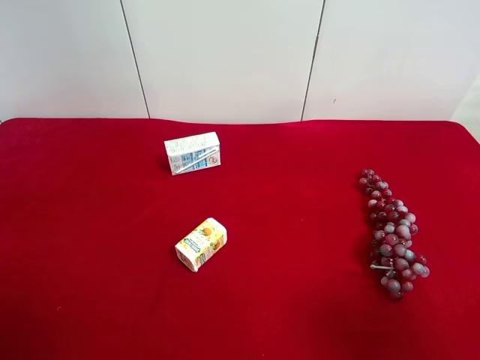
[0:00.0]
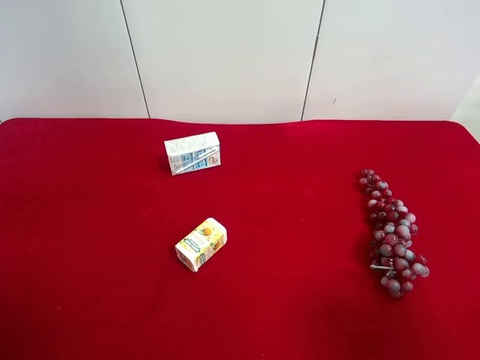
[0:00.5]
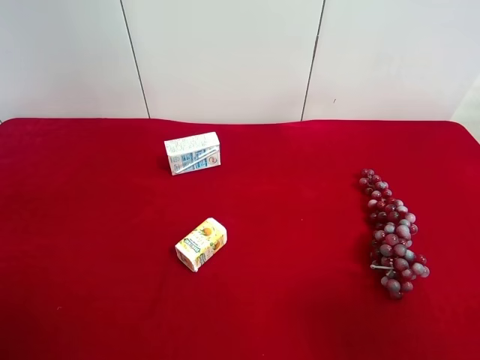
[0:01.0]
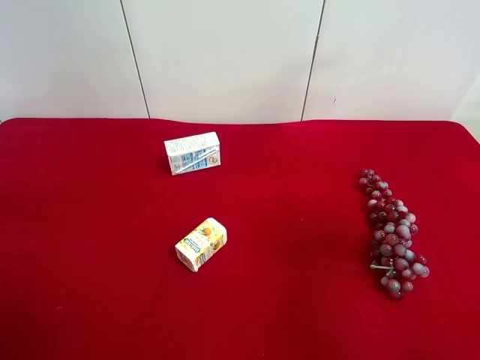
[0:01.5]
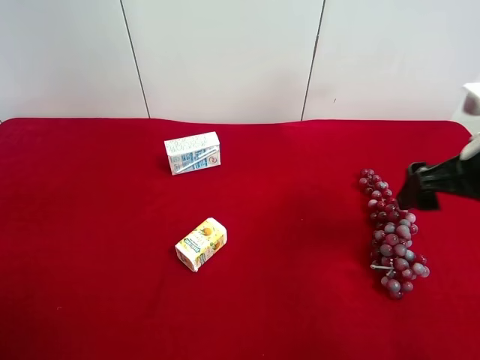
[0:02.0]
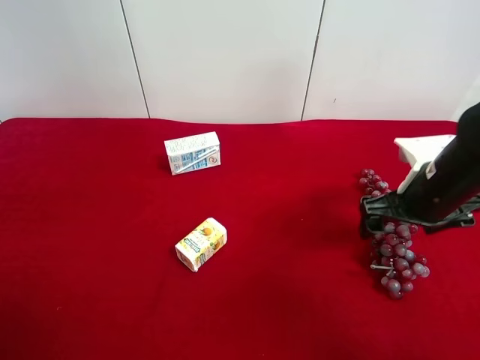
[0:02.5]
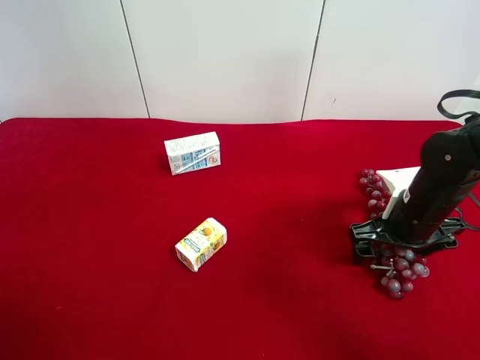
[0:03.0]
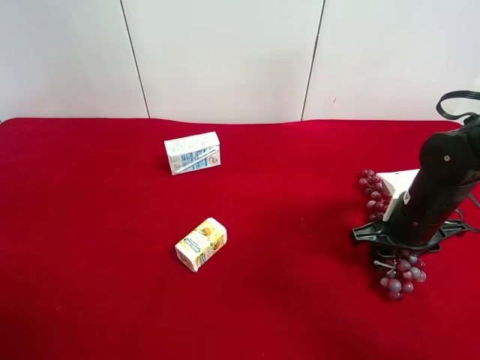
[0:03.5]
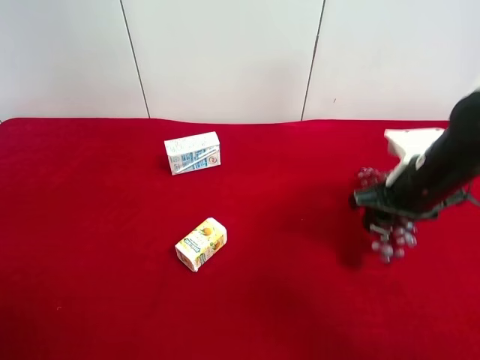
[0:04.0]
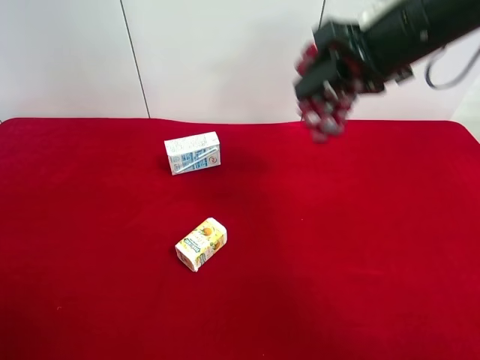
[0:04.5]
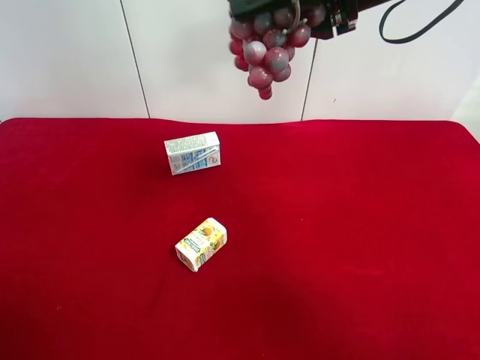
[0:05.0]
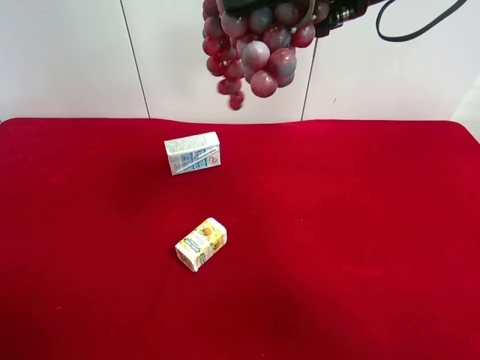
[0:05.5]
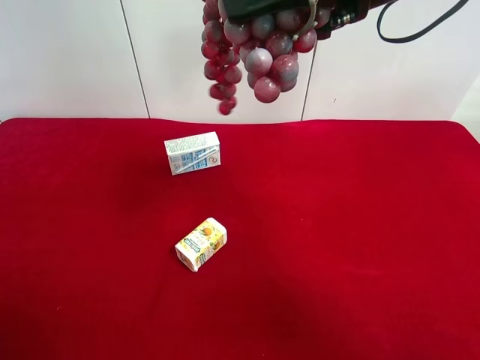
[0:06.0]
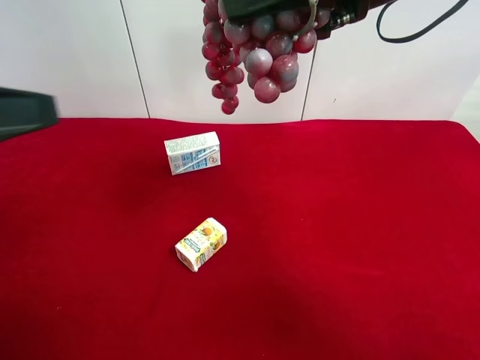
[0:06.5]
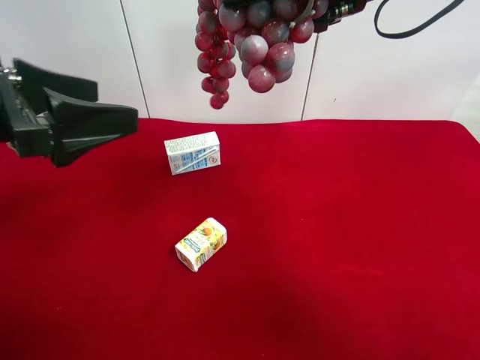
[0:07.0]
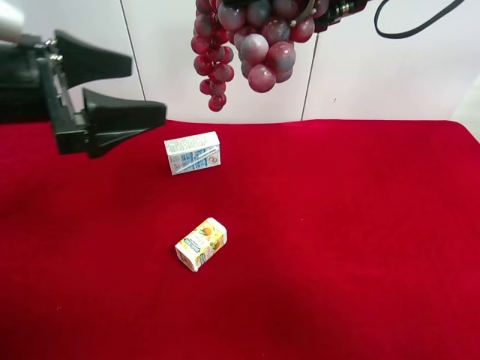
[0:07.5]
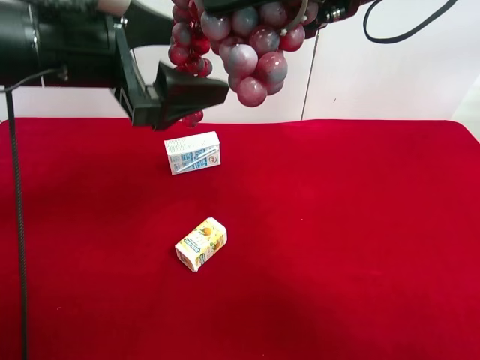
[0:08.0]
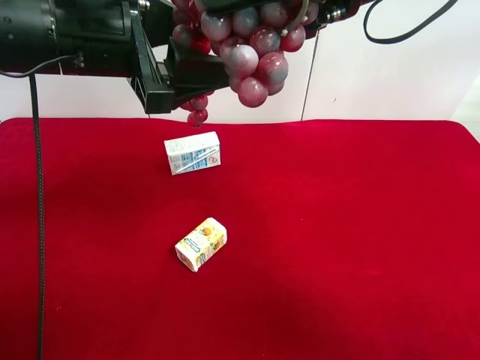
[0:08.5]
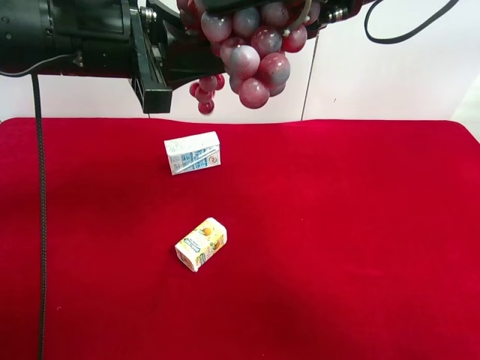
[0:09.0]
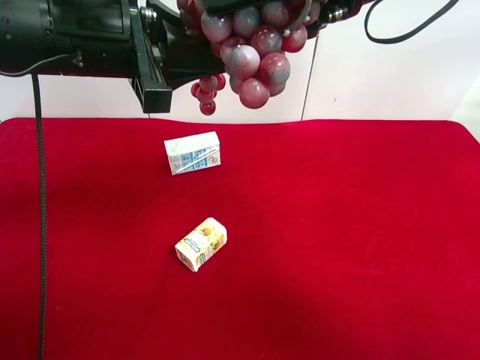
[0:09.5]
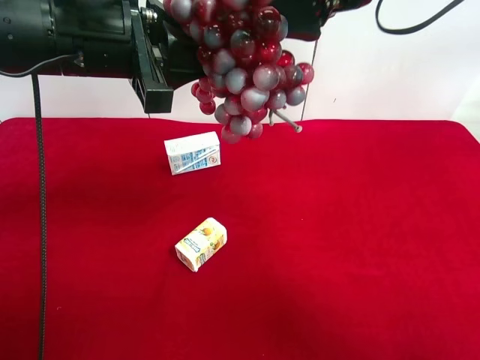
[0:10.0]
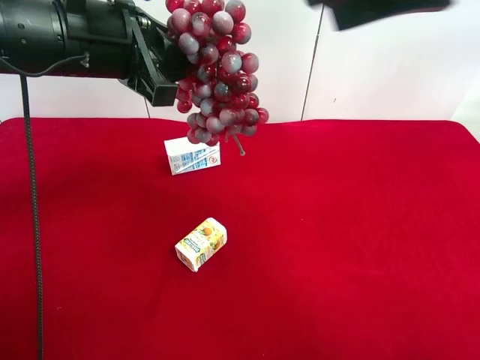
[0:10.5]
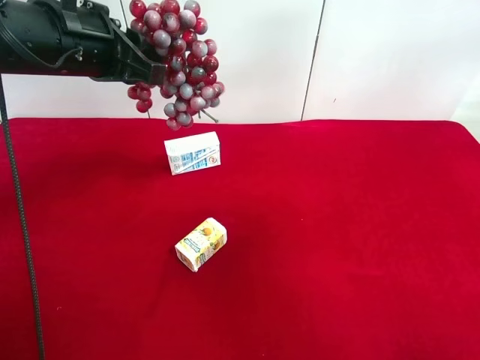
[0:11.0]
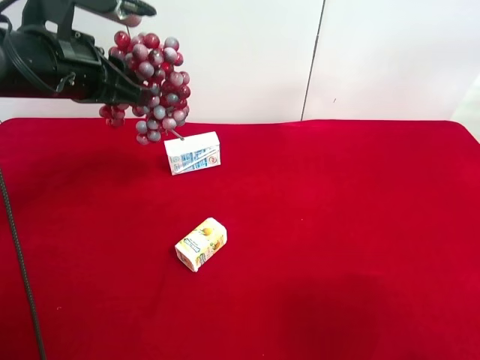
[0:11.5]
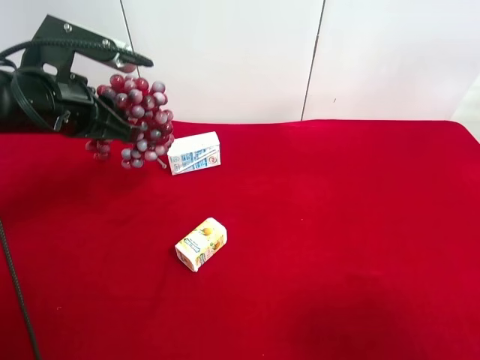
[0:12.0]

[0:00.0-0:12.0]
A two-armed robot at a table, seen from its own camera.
Task of the whole recording: use the right gripper to pick up the item and transfer it from the right gripper to the left gripper.
Step, 0:00.0 to 0:03.5: Use the right gripper to grab the grape on the right side of the table.
Step, 0:04.0 to 0:10.0: Pass the grape to the left gripper.
0:00.0 to 0:02.0: The right gripper moves forward, about 20 cm, and opens.
0:02.0 to 0:04.0: The right gripper shifts approximately 10 cm downward and forward, and closes up.
0:04.0 to 0:06.0: The left gripper changes place by roughly 5 cm; the right gripper goes roughly 25 cm upward and to the left.
0:06.0 to 0:08.0: The left gripper moves forward and to the right, some 25 cm.
0:08.0 to 0:10.0: The right gripper opens its fingers; the left gripper closes its fingers.
0:10.0 to 0:12.0: The left gripper moves to the left and downward, approximately 10 cm, while the right gripper goes about 30 cm backward, to the right and downward.

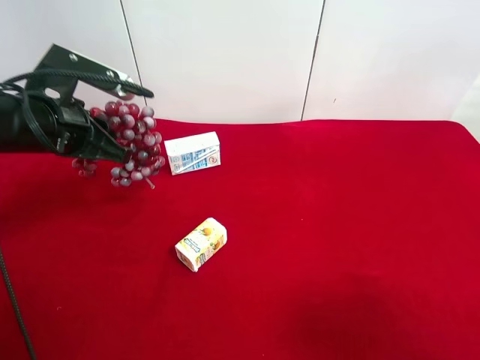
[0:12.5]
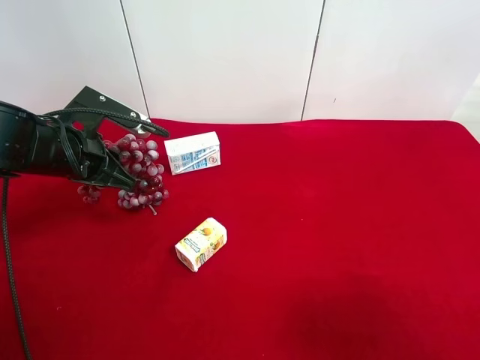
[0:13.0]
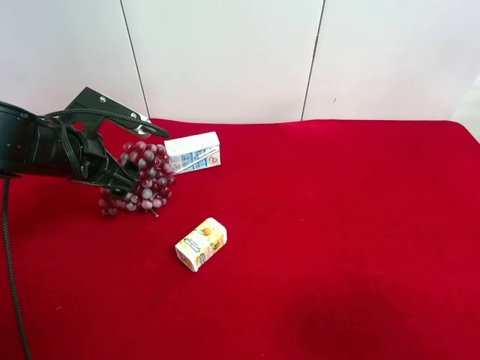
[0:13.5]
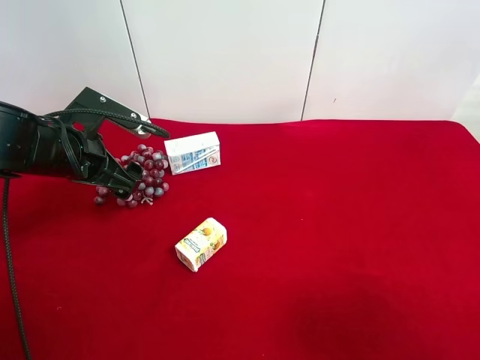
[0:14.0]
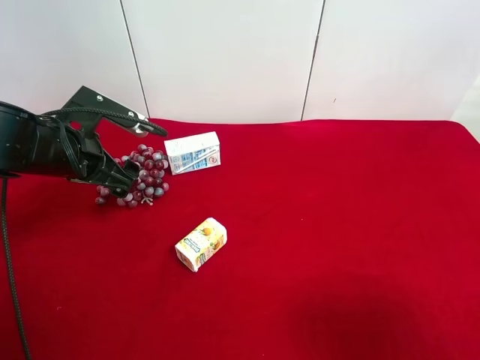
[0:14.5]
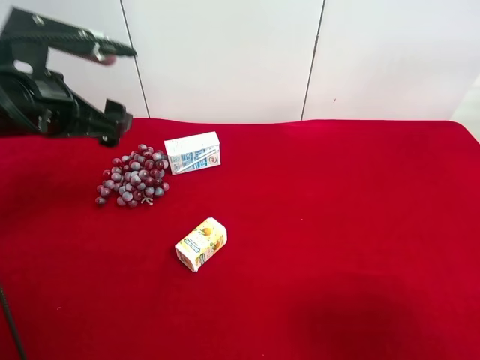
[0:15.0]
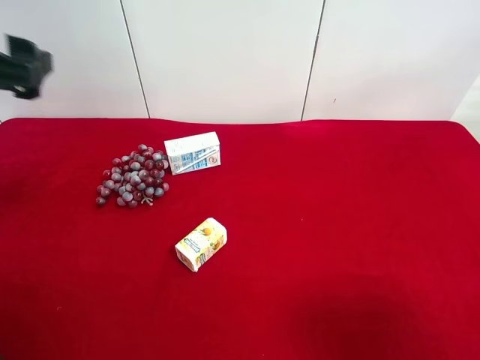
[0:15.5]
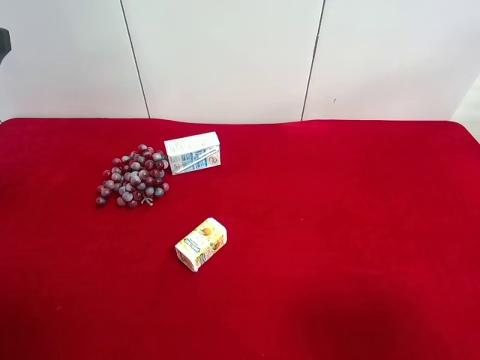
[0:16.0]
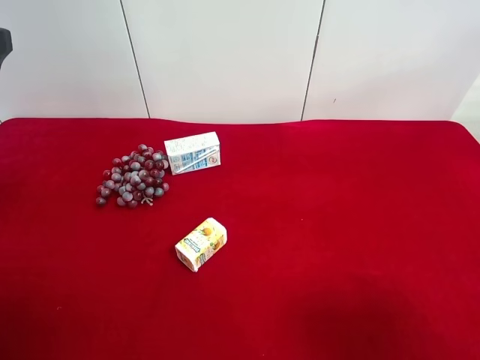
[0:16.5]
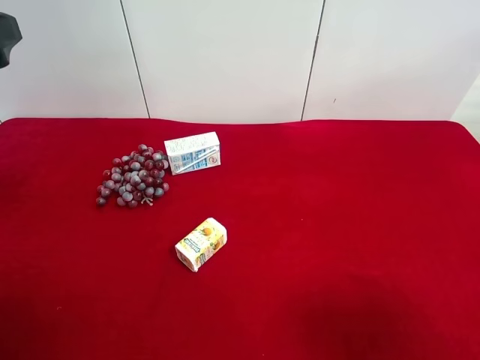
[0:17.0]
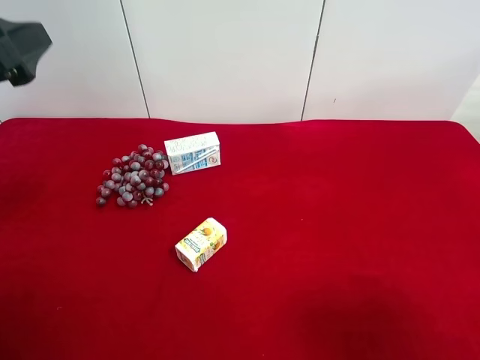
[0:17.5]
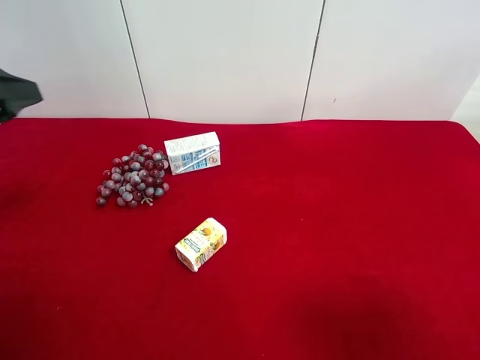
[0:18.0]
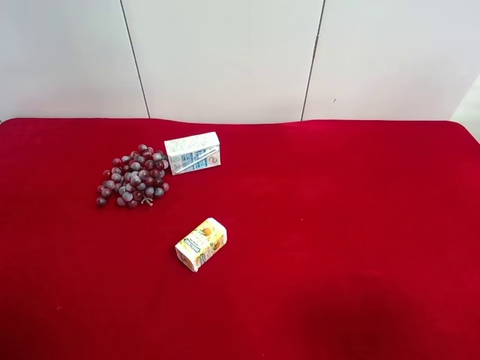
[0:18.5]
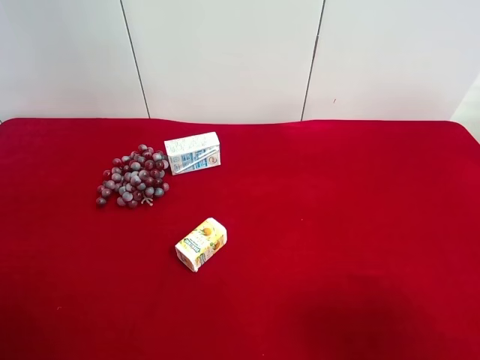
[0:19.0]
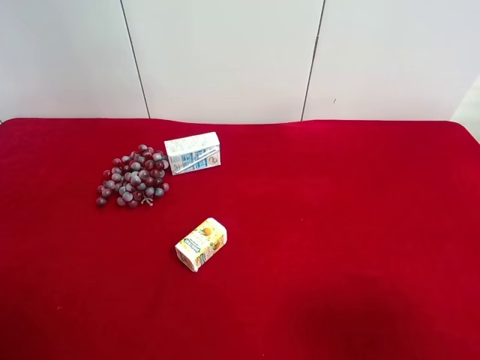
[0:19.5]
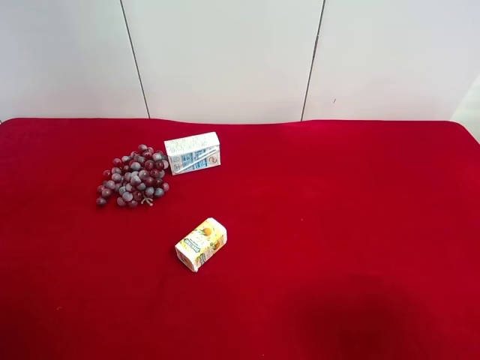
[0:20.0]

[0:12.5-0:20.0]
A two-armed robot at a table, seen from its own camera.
Task of the whole recording: use the right gripper to pick up the item and transfer it from the right gripper to the left gripper.
0:12.5 to 0:14.5: The left gripper opens its fingers.
0:14.5 to 0:16.5: The left gripper moves upward and backward, approximately 20 cm.
0:18.0 to 0:20.0: The left gripper is displaced backward by about 20 cm.
